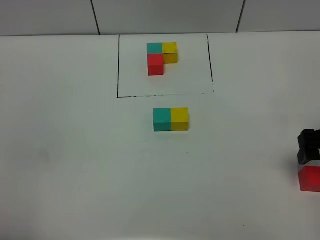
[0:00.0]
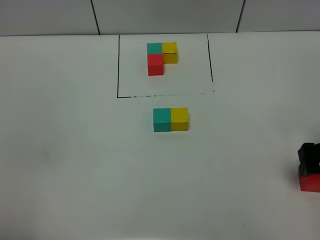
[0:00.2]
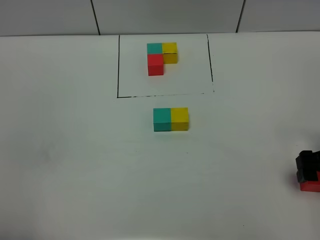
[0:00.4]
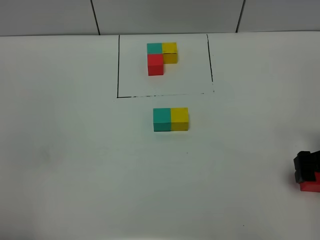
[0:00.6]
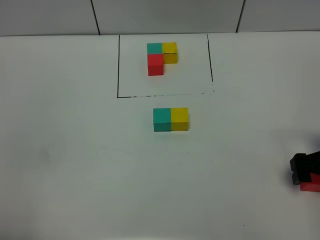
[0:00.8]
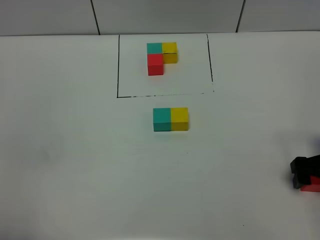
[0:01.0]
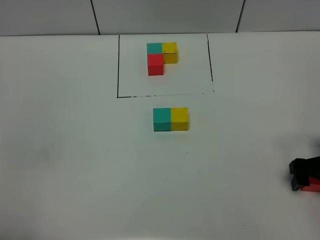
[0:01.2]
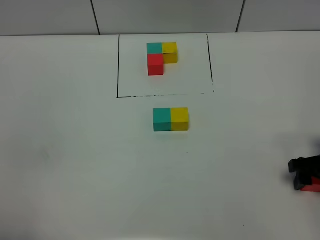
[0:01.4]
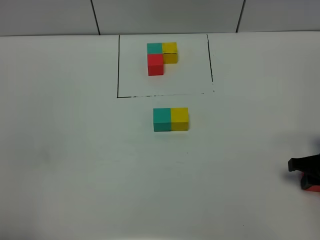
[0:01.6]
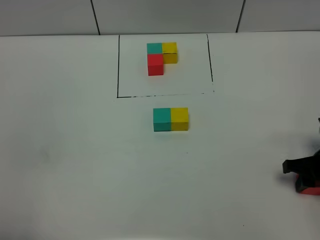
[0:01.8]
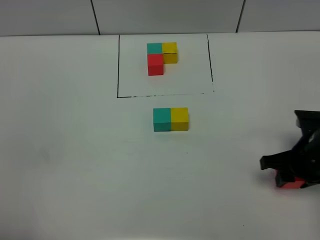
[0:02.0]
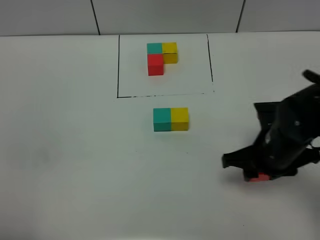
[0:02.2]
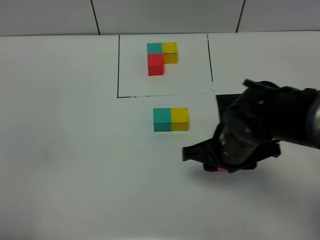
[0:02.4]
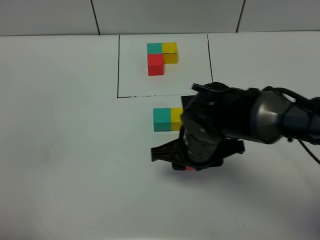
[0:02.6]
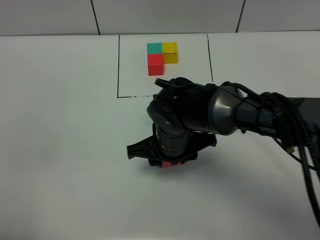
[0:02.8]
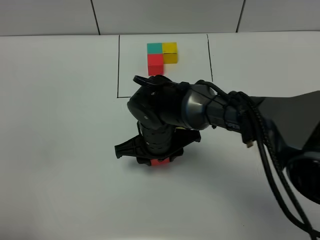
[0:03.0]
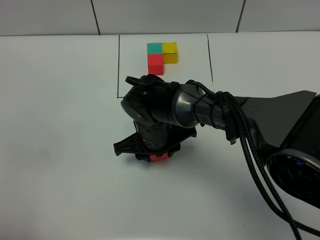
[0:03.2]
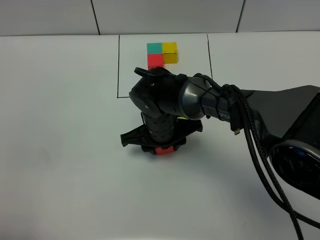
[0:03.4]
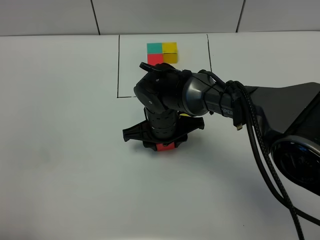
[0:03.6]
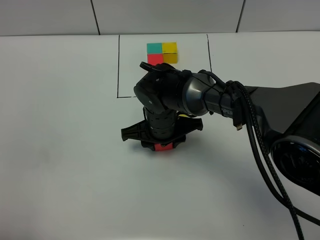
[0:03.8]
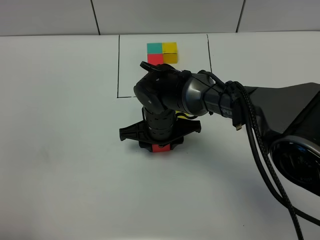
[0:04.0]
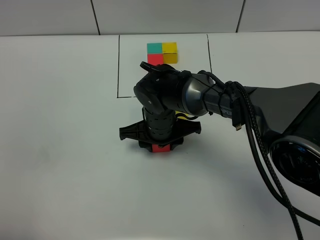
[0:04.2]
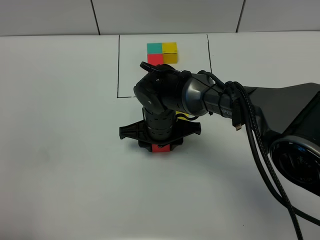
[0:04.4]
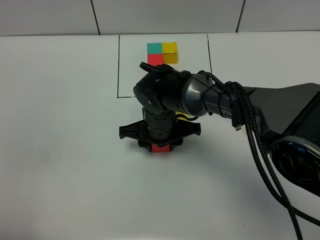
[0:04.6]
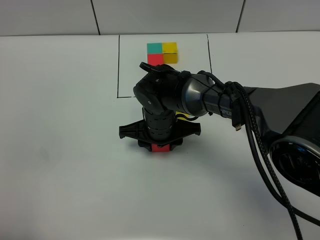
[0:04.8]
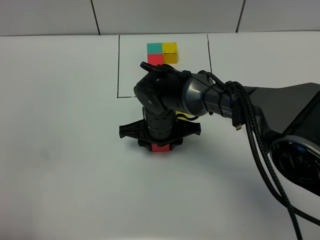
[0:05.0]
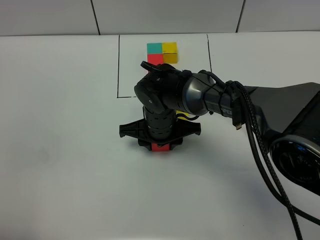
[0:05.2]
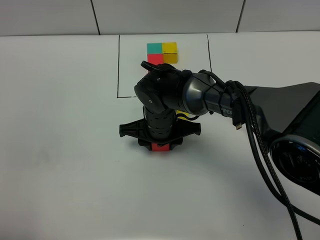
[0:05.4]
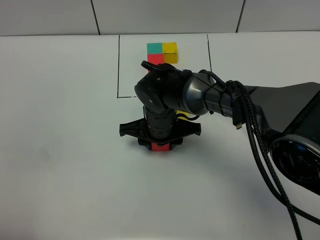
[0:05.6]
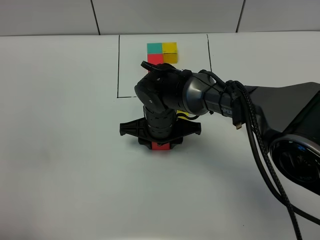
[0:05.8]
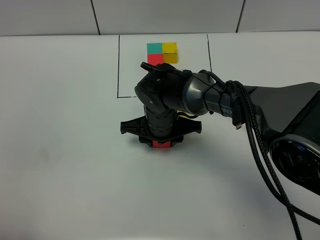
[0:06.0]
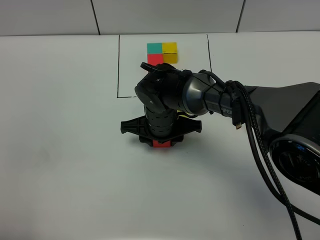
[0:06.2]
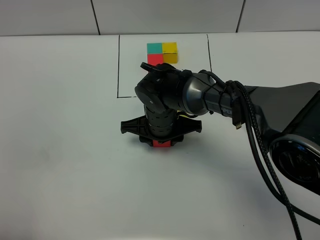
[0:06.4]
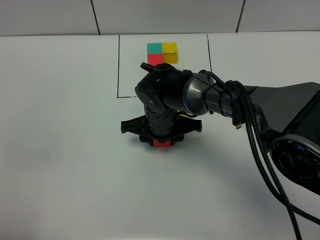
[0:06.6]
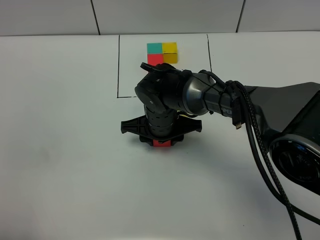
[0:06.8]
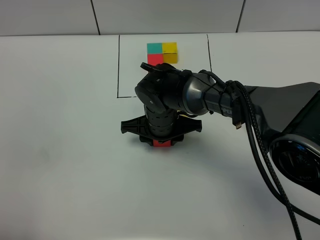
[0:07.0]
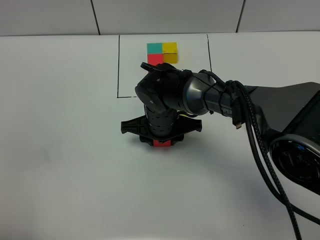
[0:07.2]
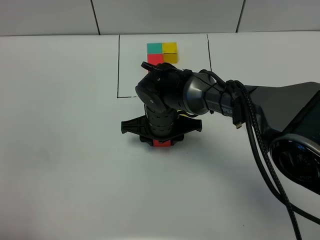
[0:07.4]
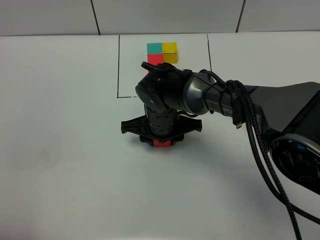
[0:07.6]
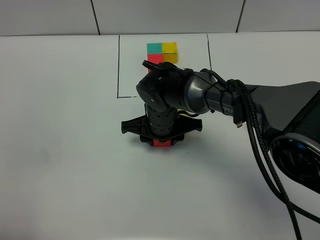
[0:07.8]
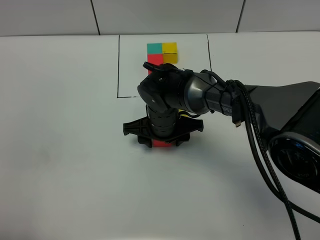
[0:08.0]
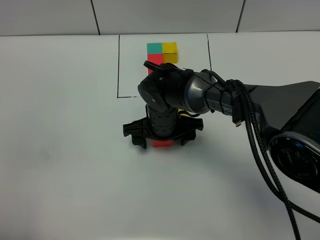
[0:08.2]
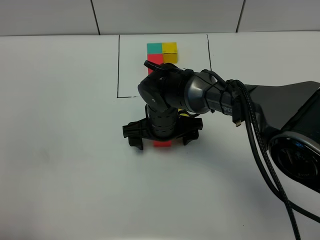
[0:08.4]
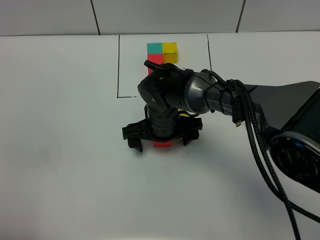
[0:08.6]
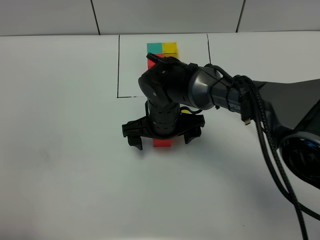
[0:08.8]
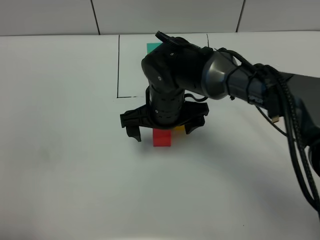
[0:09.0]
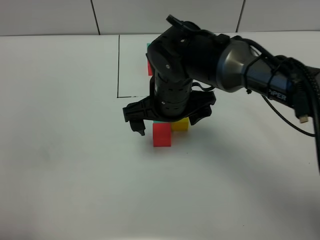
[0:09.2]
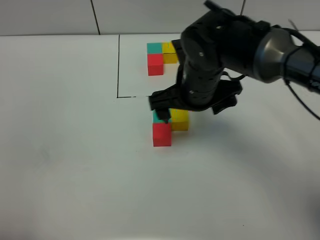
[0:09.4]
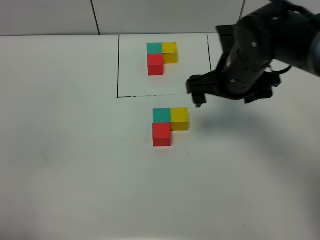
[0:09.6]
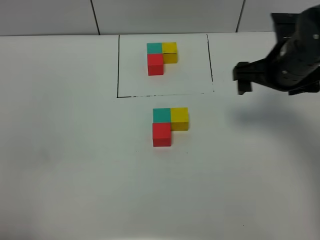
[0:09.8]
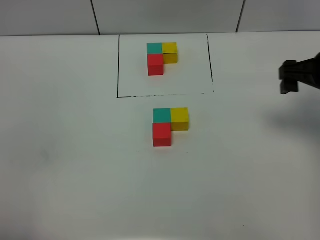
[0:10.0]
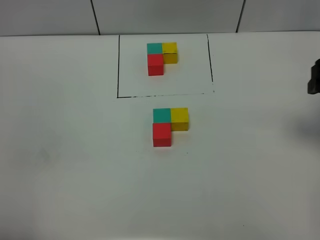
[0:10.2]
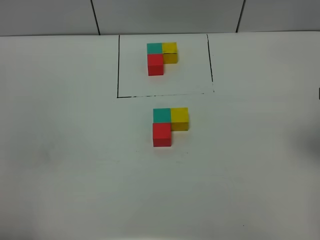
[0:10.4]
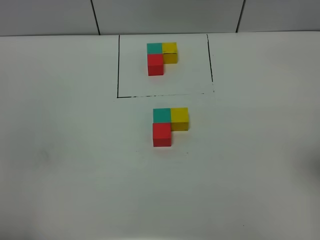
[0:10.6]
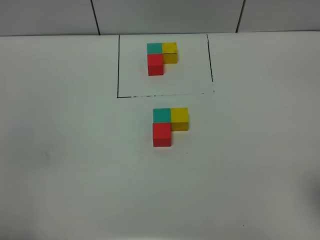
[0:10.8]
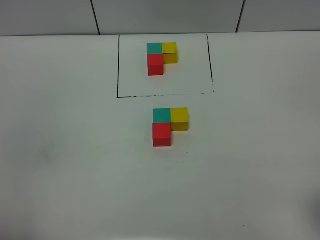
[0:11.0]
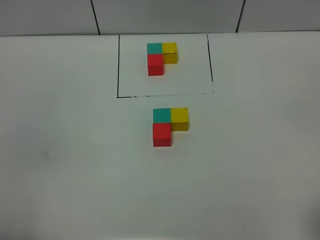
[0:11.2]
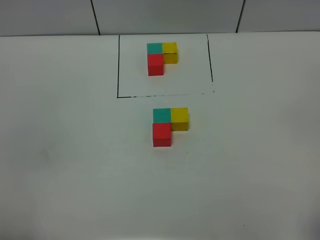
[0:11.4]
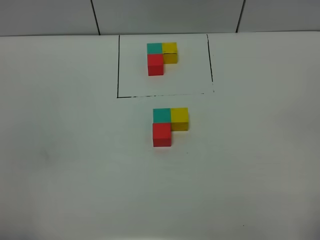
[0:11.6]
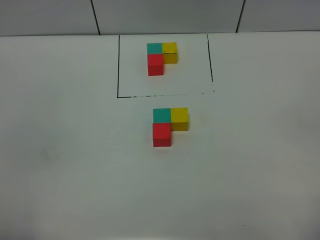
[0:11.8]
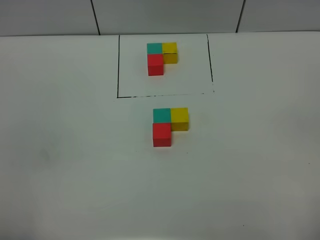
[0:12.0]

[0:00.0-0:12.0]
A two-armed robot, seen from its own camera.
Task of the whole recording: According to the building block template in front, assemble the scattered blocks together.
Step, 0:00.0 to 0:08.2: Put the red build block on the behind of the green build block.
0:00.0 to 0:01.6: The right gripper is displaced downward by about 10 cm, and closes its fingers.
0:01.6 to 0:03.0: The right gripper heads to the left, covering some 35 cm.
0:03.0 to 0:04.4: The grippers stay close to where they were, moving slightly.
0:04.4 to 0:07.6: Neither gripper changes place.
0:07.6 to 0:09.0: The right gripper travels upward by roughly 5 cm, and opens.
0:09.0 to 0:10.4: The right gripper heads to the right and upward, covering about 35 cm.

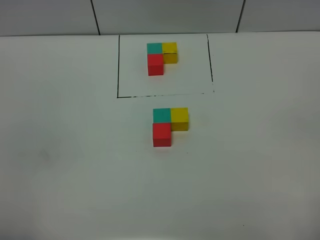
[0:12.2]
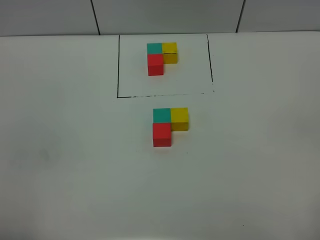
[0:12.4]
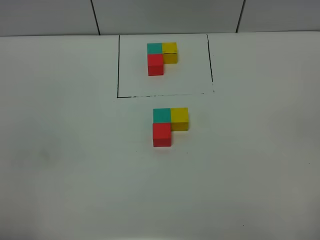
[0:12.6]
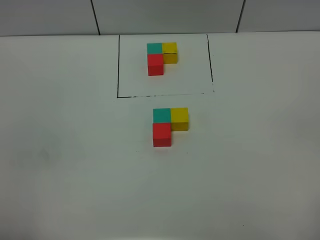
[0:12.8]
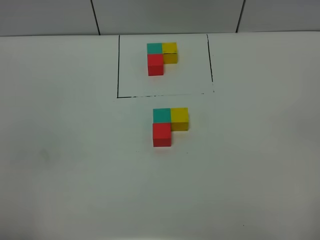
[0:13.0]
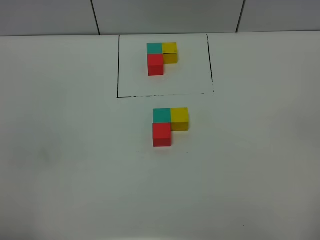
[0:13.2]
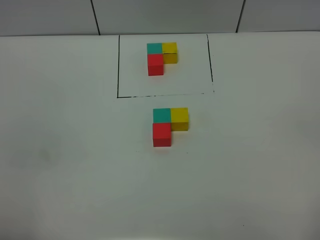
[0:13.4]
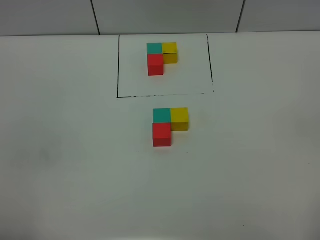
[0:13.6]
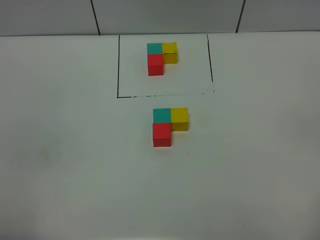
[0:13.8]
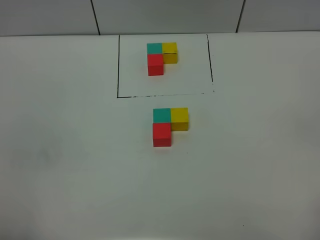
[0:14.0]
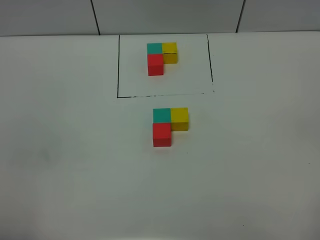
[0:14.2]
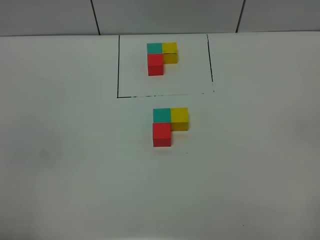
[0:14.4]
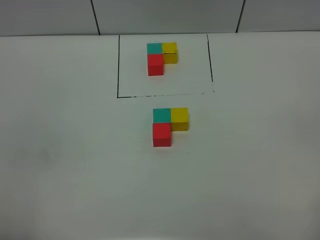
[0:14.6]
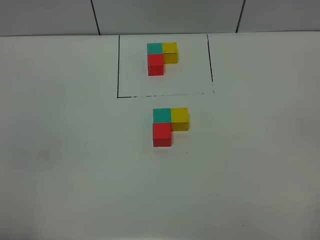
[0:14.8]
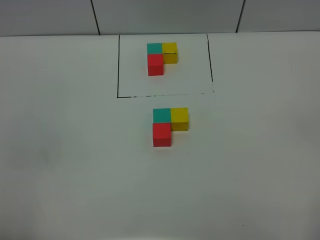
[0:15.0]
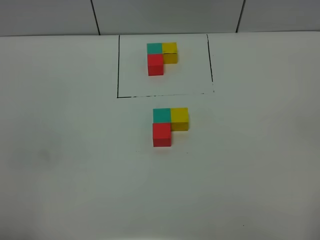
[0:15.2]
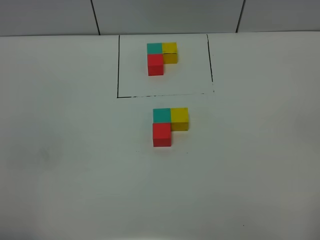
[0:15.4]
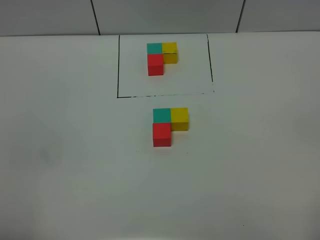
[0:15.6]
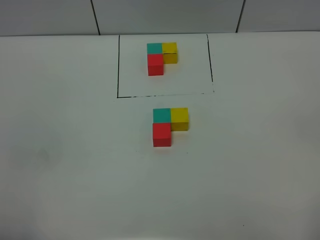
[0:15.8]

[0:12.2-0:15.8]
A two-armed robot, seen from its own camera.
Task of the whole recording: According to the building block template in front, assemble the scattered blocks together.
0:14.0 to 0:15.8: Both grippers stay put.

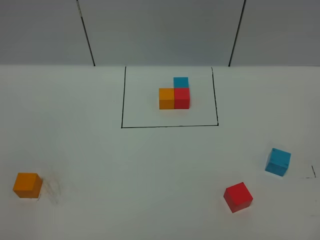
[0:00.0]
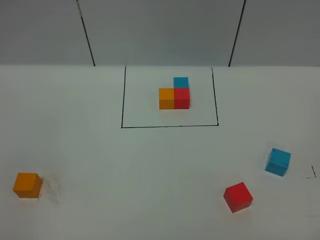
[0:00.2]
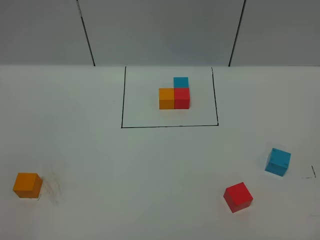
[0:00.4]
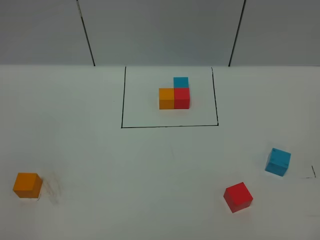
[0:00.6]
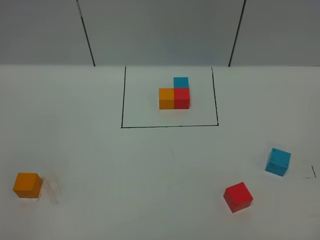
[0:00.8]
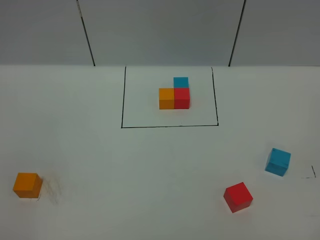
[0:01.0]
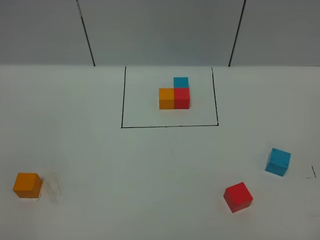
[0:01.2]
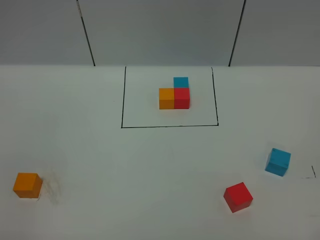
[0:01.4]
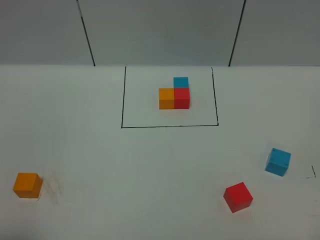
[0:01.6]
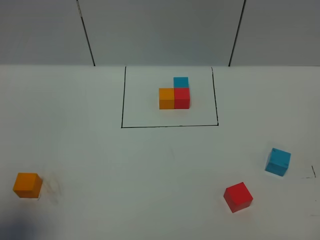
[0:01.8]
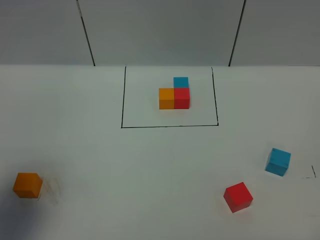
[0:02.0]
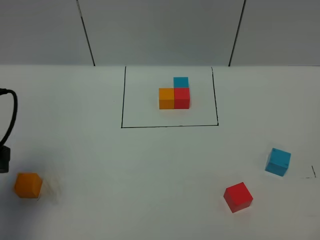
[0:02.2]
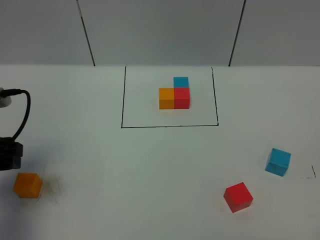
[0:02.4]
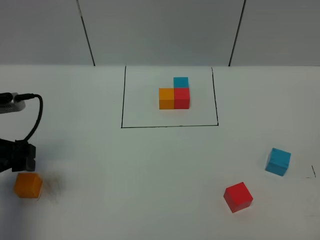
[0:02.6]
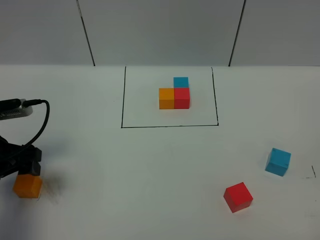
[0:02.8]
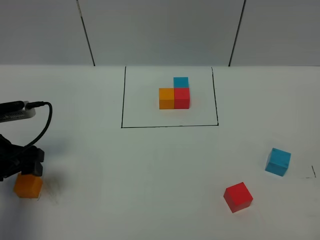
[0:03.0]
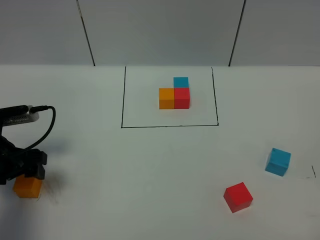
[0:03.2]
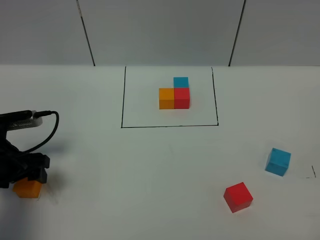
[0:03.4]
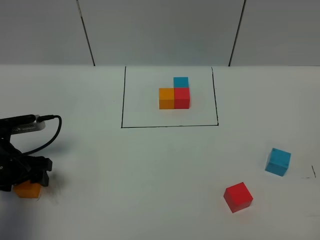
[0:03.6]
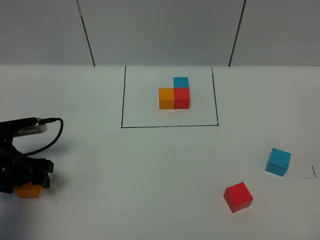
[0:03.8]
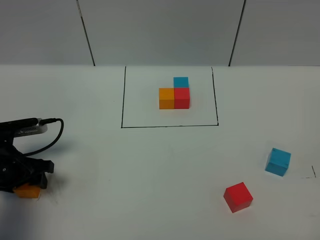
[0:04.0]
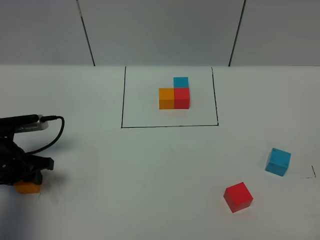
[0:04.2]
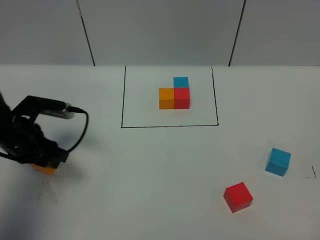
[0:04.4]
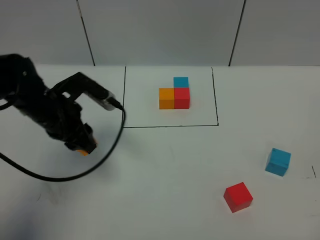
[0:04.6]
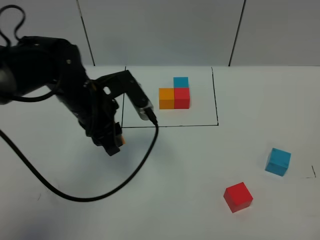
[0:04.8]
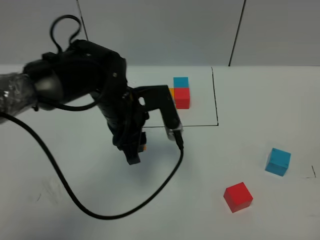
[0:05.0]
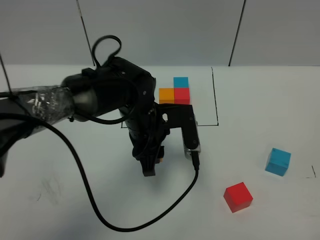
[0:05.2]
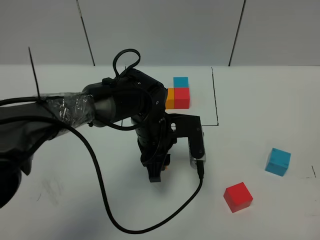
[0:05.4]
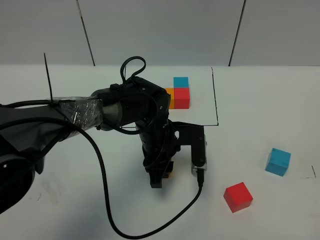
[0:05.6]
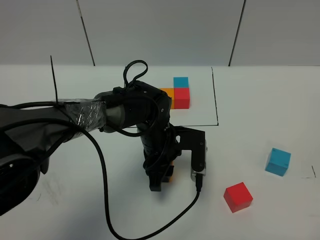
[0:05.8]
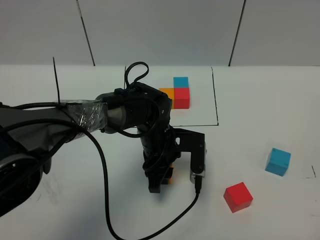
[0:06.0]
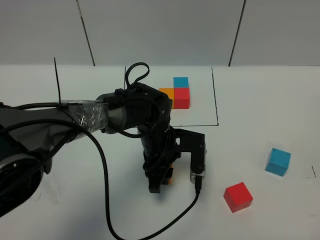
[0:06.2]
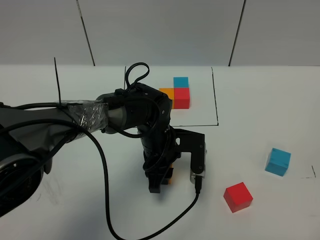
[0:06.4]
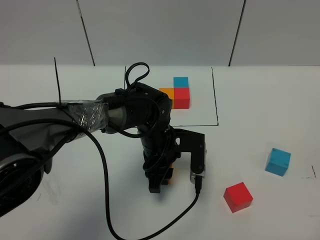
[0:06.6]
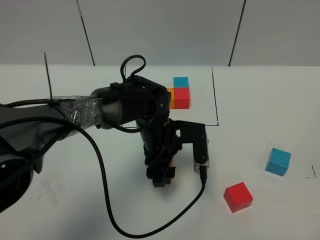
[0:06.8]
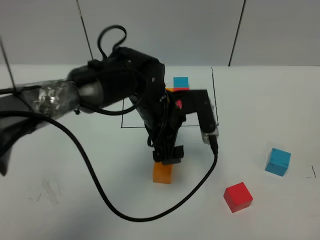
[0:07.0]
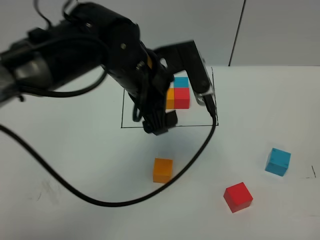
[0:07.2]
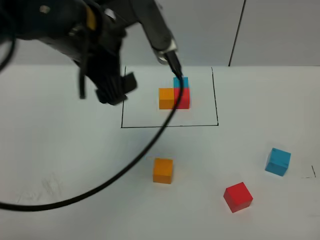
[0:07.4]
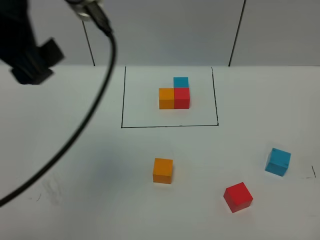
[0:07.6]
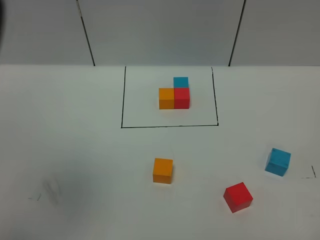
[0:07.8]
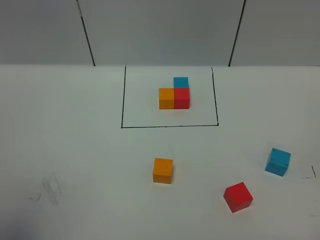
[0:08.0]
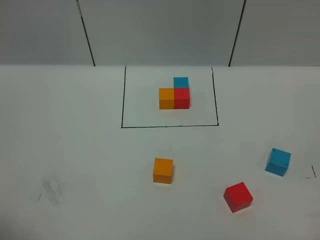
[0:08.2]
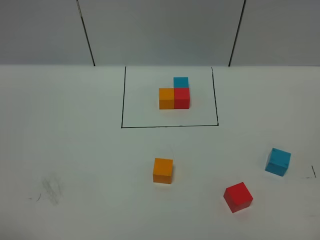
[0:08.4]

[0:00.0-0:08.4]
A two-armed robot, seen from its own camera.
Task of the whole recording: According to the building block template in front, assemble the scattered blocks together.
Step, 0:02.0 to 0:06.8: Put the orange cube in the center of the table.
0:00.0 to 0:01.4: Neither gripper changes place.
0:01.4 to 0:02.8: The left gripper moves forward, some 25 cm.
0:02.8 to 0:04.2: The left gripper shifts approximately 5 cm downward, and closes.
0:04.2 to 0:05.6: The left gripper goes approximately 30 cm to the right.
0:05.6 to 0:07.0: The left gripper moves upward, approximately 10 cm, and opens up.
0:07.0 to 0:08.4: The left gripper shifts roughly 50 cm backward, to the left and upward.
